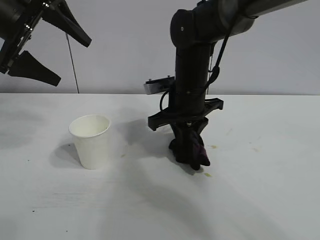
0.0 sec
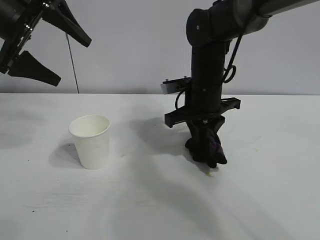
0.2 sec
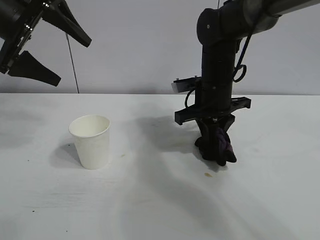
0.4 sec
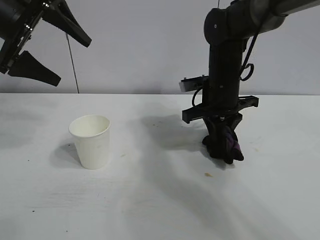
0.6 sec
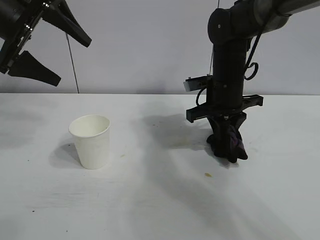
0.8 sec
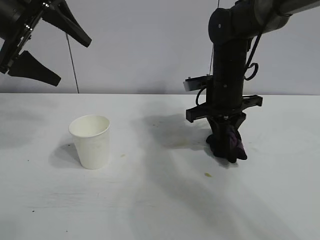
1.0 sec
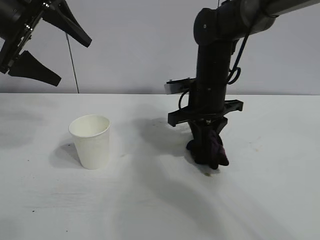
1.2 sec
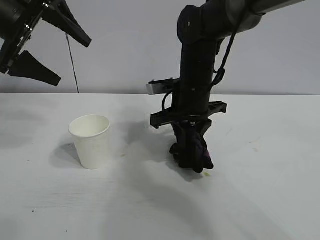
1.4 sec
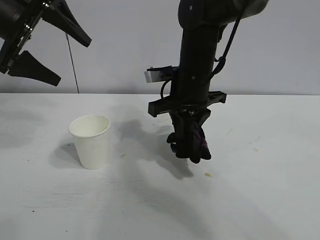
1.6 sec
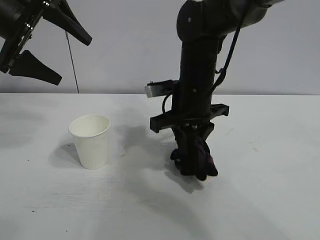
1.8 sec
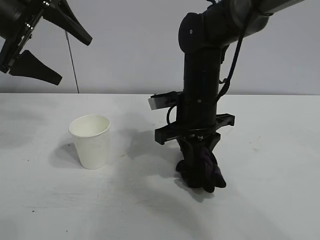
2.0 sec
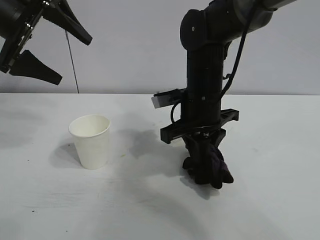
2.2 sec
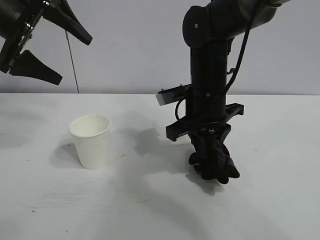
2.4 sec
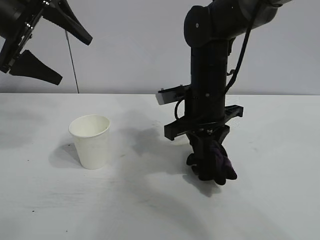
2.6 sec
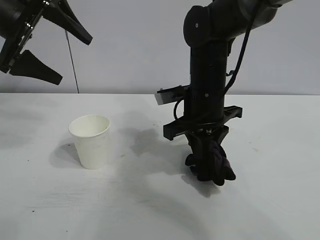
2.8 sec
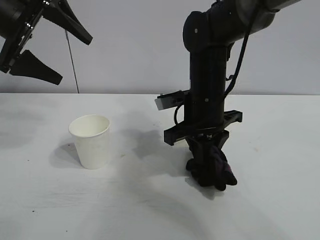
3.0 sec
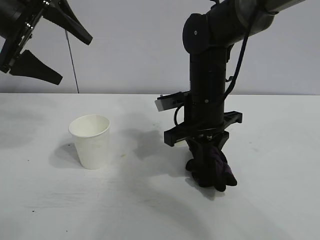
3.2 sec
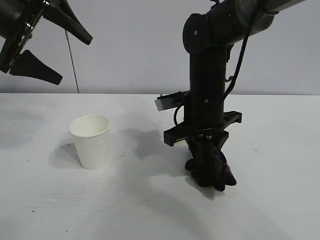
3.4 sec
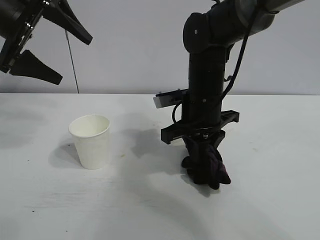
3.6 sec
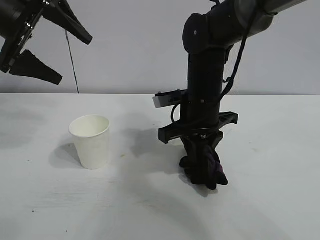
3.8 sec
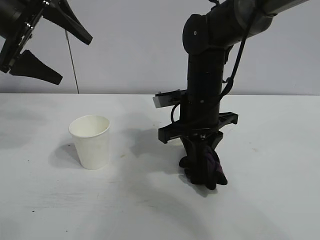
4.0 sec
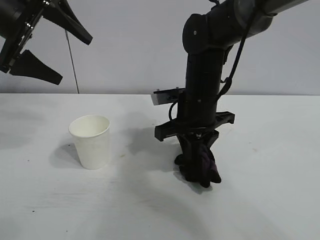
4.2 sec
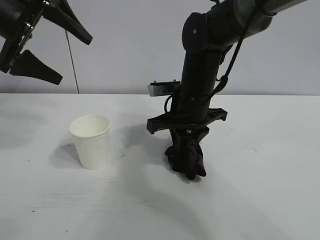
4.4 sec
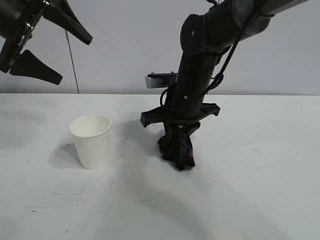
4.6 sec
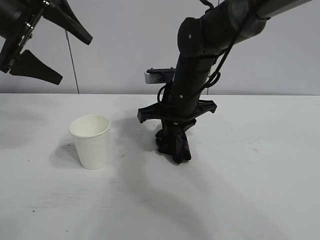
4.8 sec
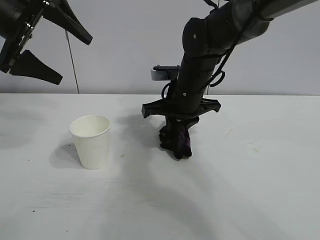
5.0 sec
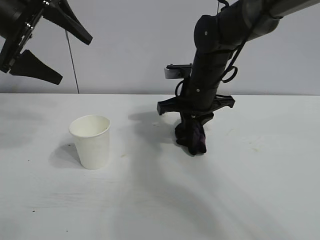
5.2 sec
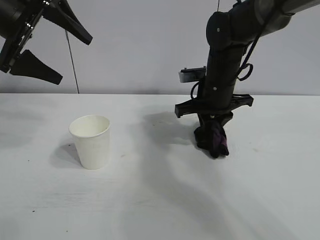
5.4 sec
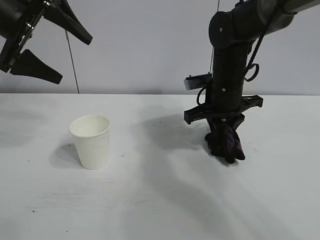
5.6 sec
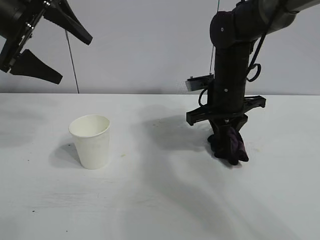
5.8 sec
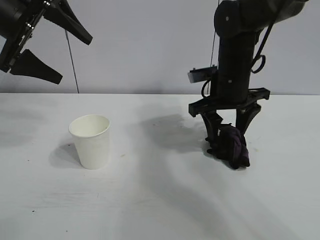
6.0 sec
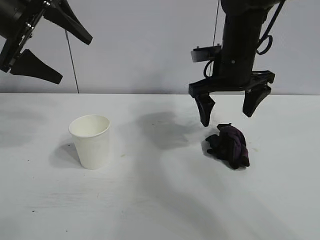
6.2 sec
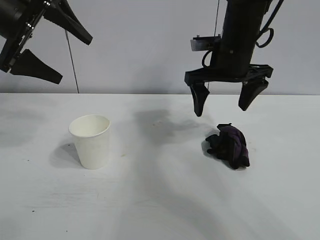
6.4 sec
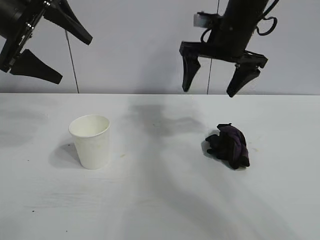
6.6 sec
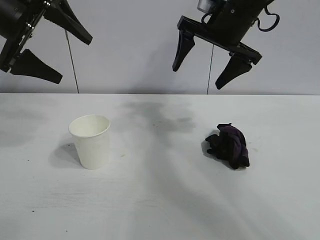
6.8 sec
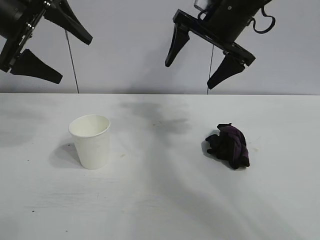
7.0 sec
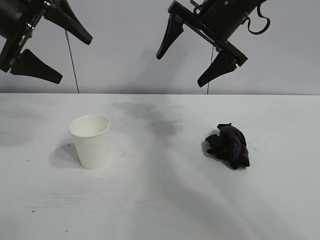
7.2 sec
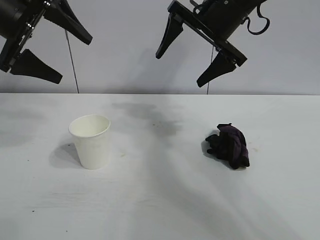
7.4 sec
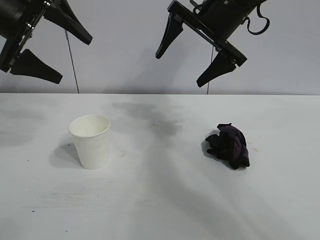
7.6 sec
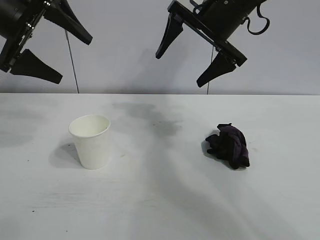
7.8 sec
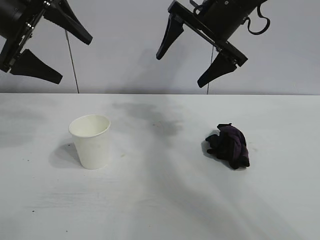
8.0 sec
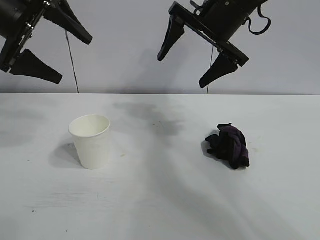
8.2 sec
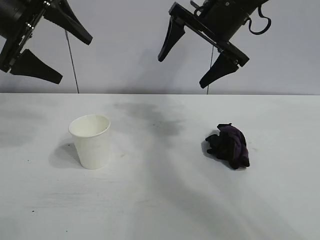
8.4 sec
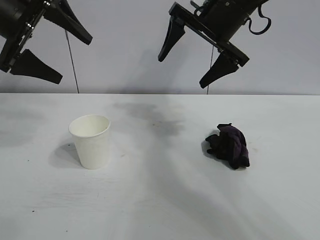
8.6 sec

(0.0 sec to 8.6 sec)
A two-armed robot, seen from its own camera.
Task of the whole recording: the left gripper pick up the fallen cup and place it upright, the right gripper grasp the black rag and wipe the stain on the table, the right gripper put the black rag back in its original position.
Step, 0.0 sec - 5.4 sec: Wipe the stains off the table with the rag with right gripper.
